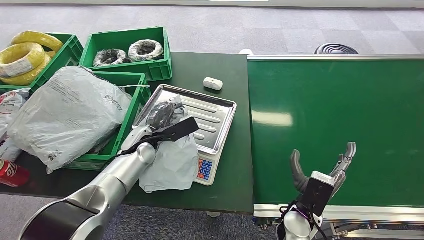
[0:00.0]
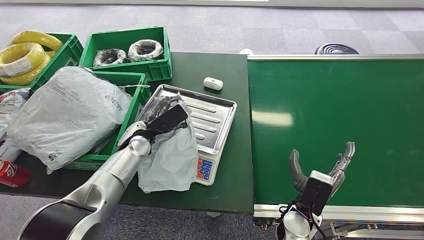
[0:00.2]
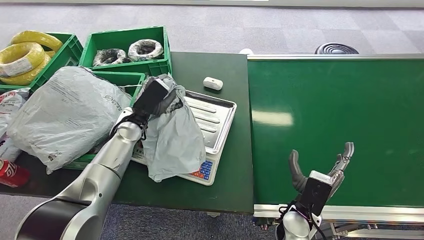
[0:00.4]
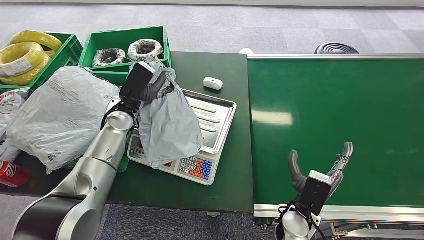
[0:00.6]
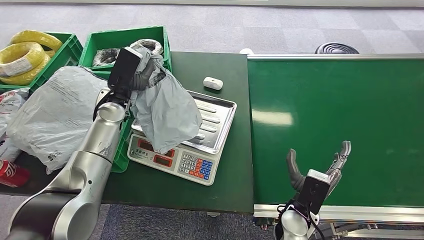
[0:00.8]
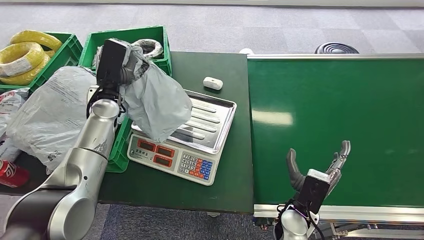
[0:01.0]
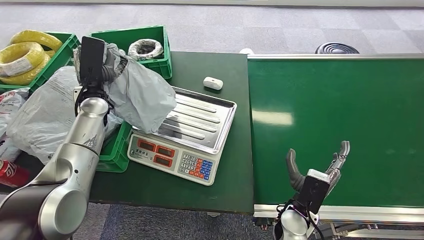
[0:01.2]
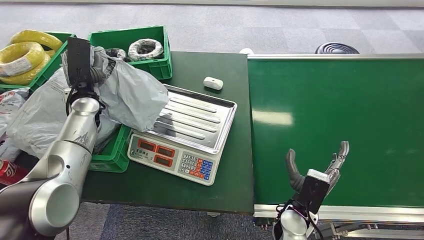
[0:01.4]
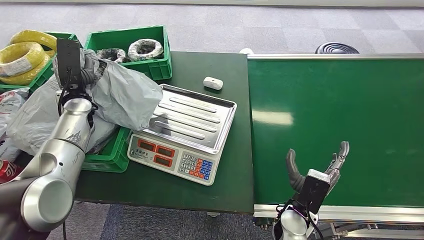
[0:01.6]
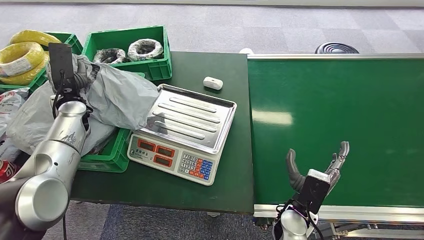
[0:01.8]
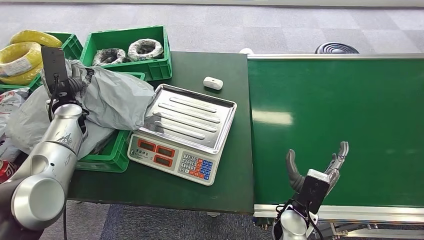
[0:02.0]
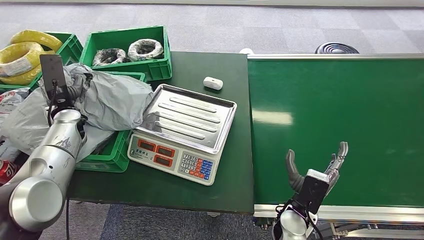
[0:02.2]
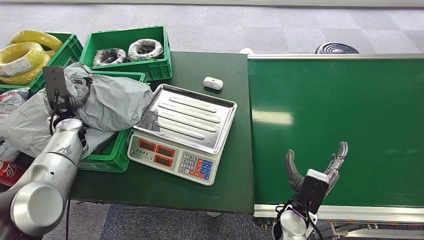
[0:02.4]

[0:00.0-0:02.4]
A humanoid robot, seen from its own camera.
Step, 0:01.2 to 0:02.4: Place the package into the parcel locker.
0:01.2 to 0:02.4: The left hand moves to the left and downward, about 10 cm.
